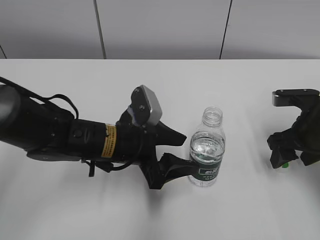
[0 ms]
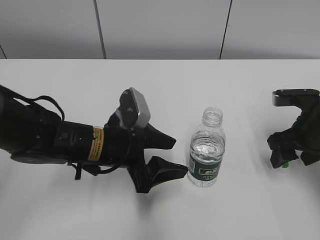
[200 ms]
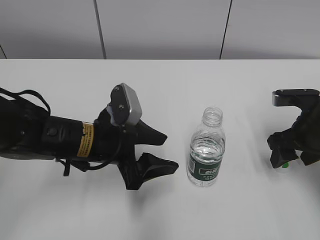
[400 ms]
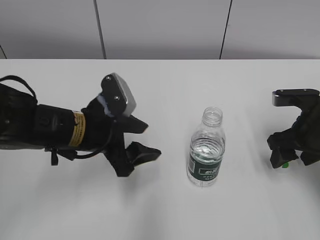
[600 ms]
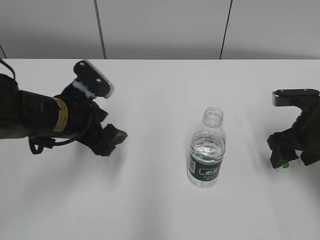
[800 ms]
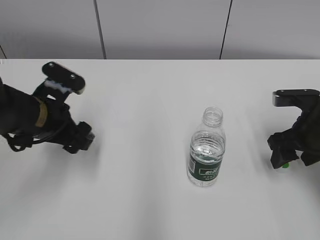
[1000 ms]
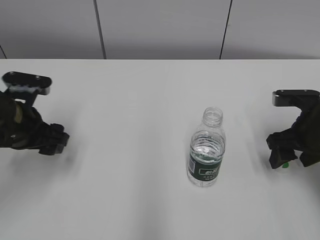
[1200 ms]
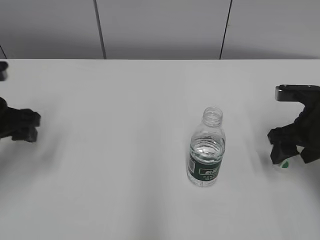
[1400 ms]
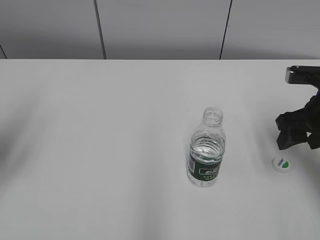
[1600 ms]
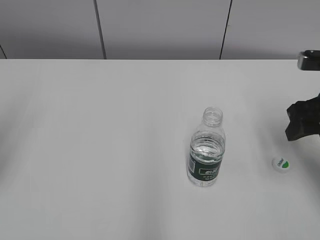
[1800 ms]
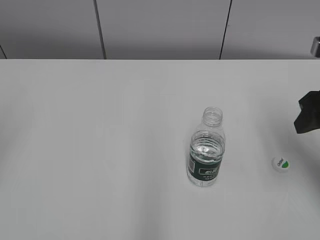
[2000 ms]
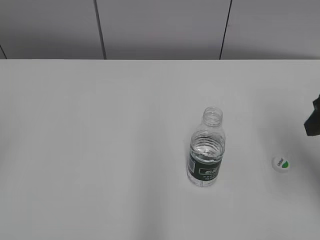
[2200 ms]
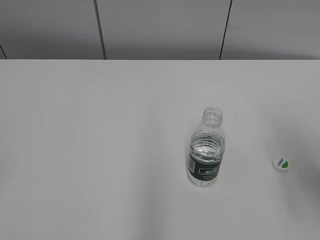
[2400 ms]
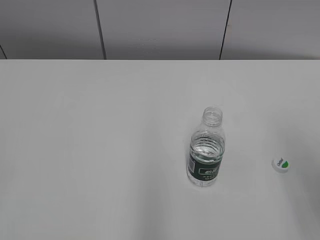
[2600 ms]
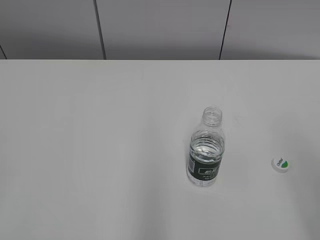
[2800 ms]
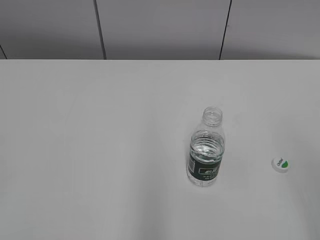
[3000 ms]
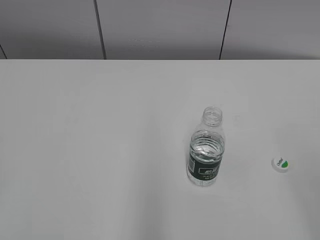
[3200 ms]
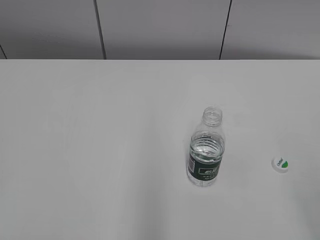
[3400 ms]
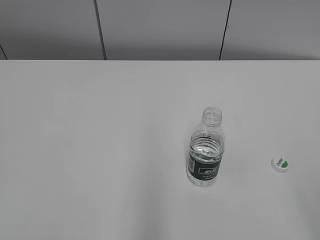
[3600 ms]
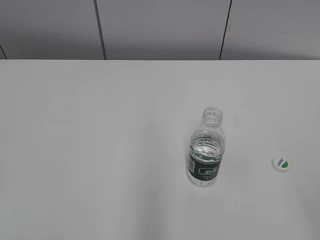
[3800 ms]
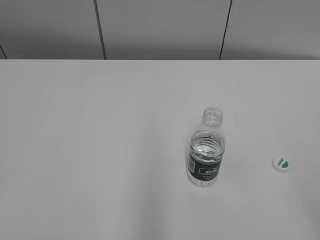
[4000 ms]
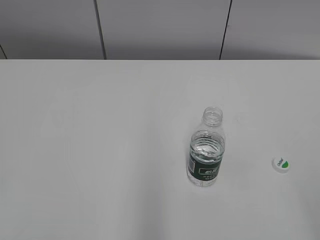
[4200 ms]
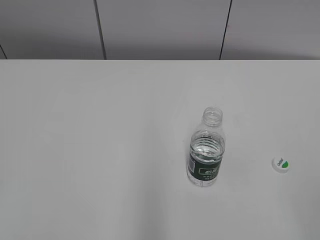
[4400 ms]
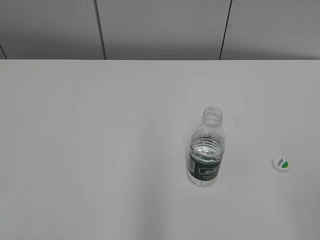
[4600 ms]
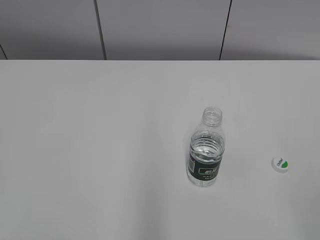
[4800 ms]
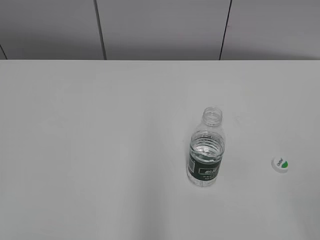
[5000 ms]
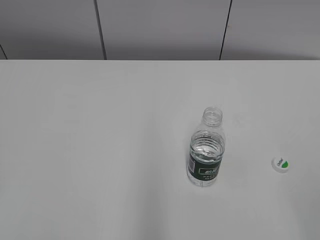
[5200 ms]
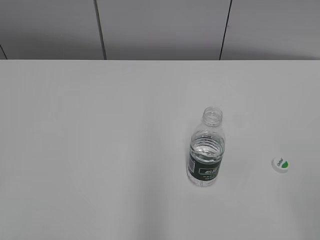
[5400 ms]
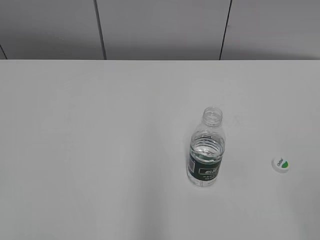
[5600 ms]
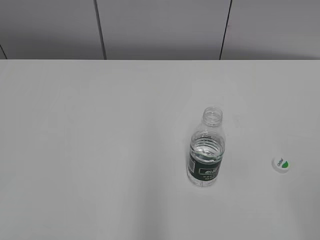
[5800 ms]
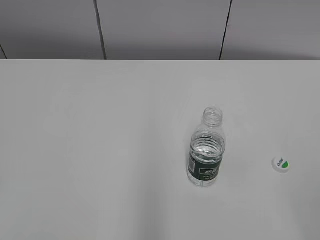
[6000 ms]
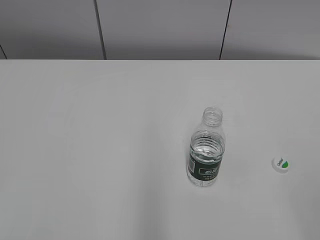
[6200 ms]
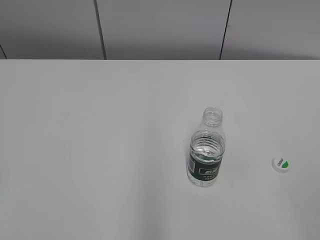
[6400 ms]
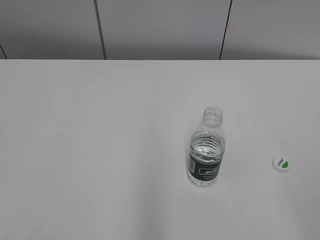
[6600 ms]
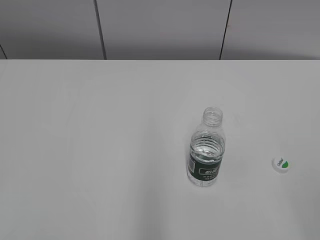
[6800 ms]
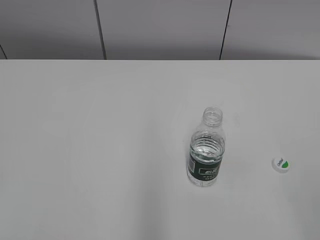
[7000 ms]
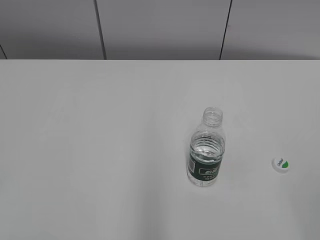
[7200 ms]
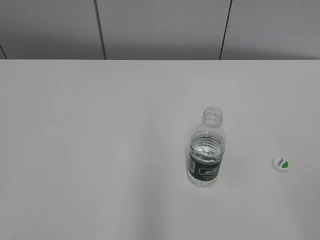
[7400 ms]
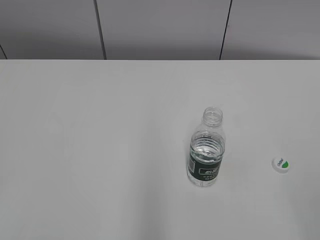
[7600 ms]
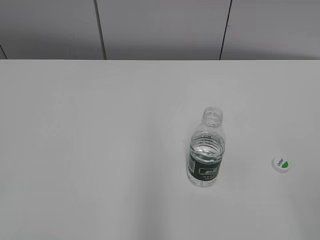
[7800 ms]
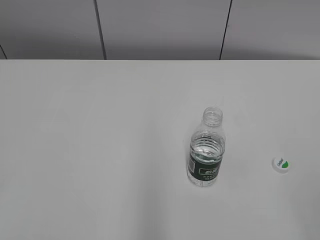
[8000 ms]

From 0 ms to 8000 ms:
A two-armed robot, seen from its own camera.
From 0 ms to 1600 ms: The left gripper travels to the left and upward by roughly 25 cm.
From 1600 ms to 3200 ms: The left gripper shifts about 25 cm backward. Meanwhile the right gripper goes about 30 cm backward and upward.
From 6400 ms to 8000 ms: The two grippers keep their place.

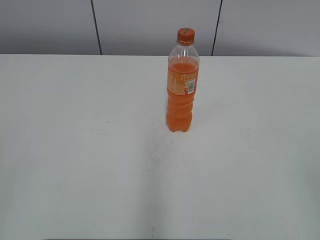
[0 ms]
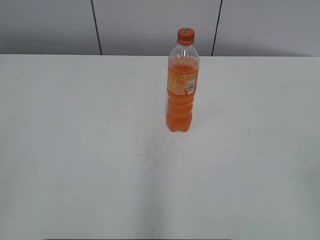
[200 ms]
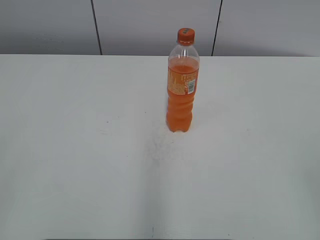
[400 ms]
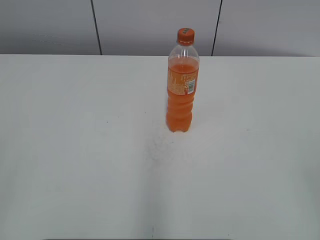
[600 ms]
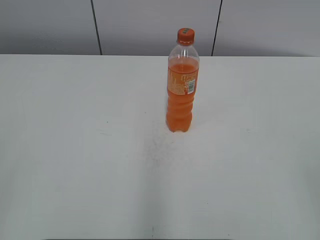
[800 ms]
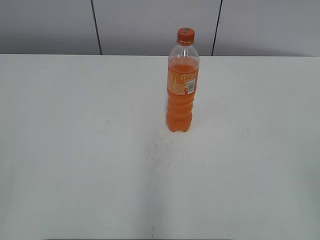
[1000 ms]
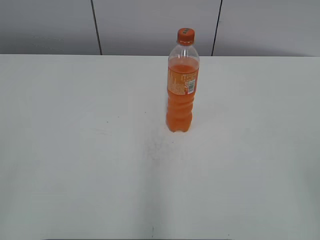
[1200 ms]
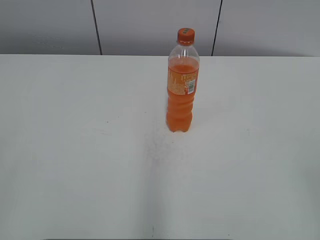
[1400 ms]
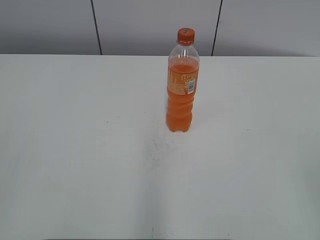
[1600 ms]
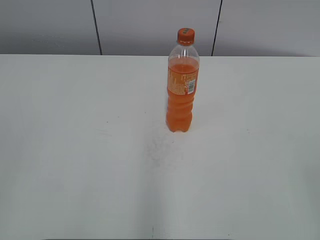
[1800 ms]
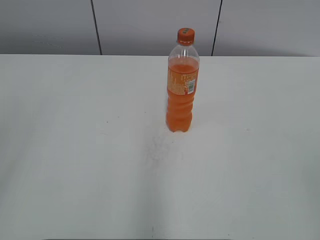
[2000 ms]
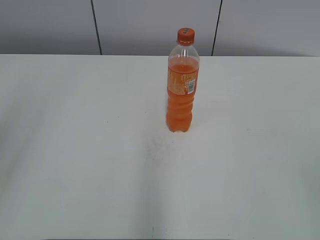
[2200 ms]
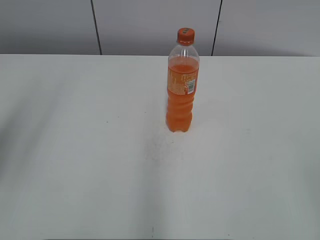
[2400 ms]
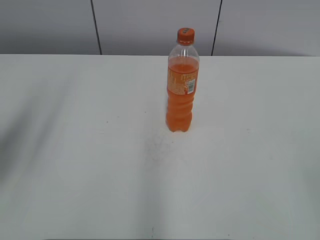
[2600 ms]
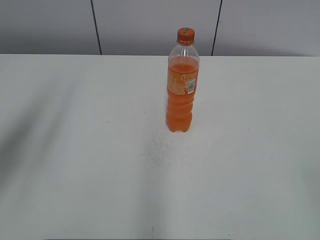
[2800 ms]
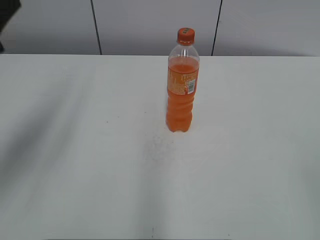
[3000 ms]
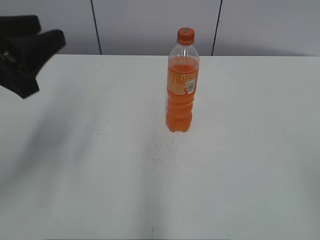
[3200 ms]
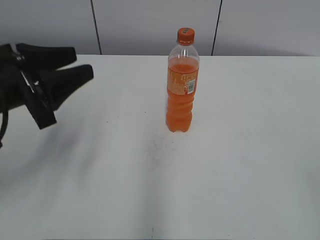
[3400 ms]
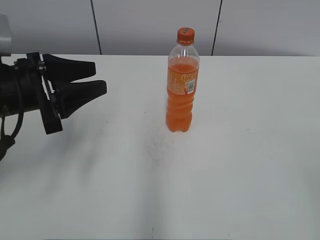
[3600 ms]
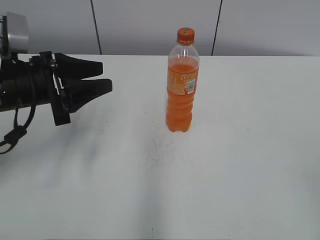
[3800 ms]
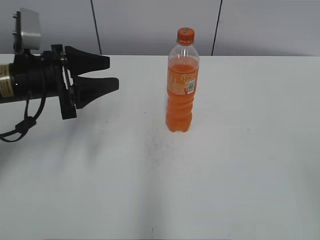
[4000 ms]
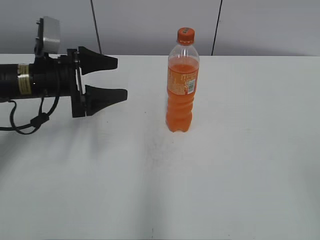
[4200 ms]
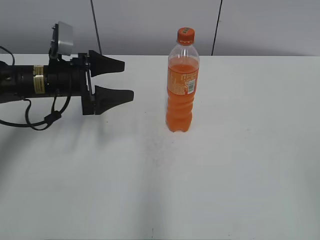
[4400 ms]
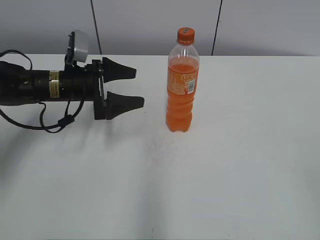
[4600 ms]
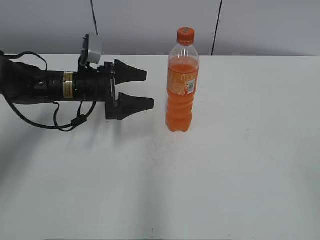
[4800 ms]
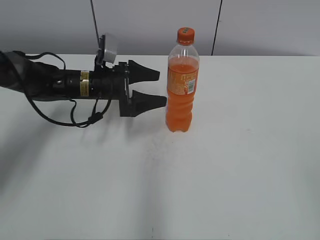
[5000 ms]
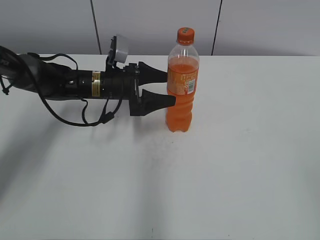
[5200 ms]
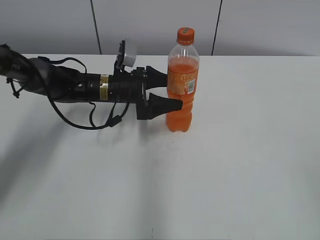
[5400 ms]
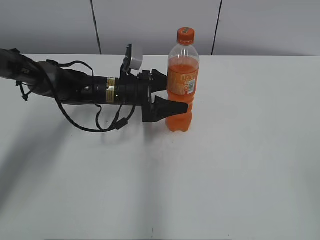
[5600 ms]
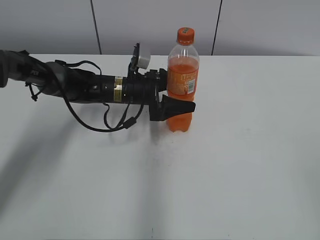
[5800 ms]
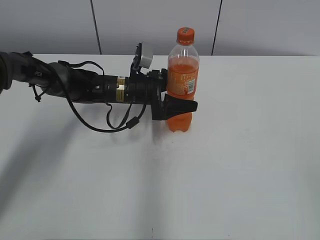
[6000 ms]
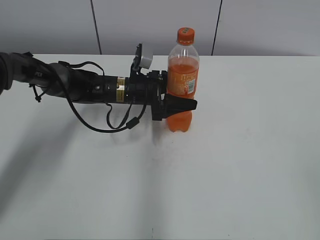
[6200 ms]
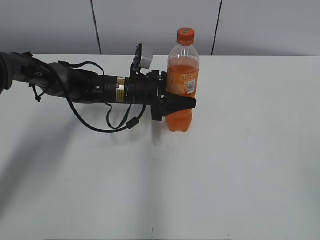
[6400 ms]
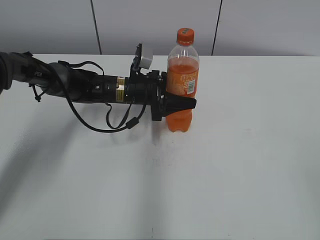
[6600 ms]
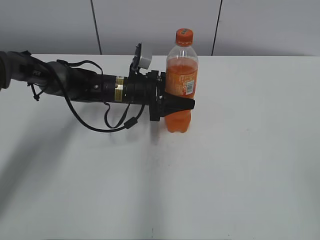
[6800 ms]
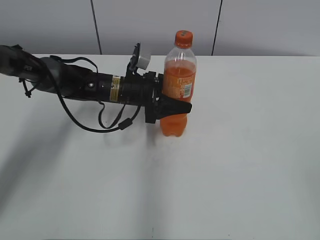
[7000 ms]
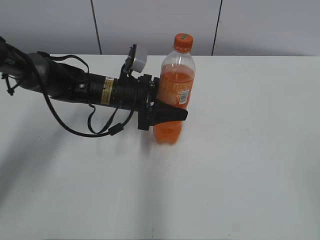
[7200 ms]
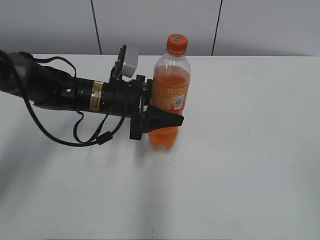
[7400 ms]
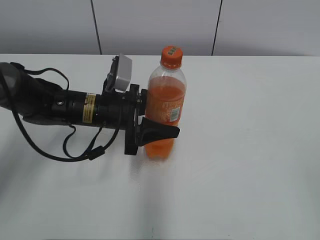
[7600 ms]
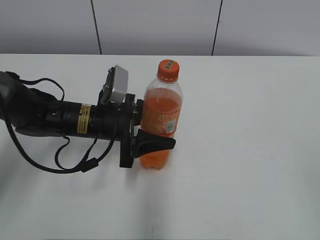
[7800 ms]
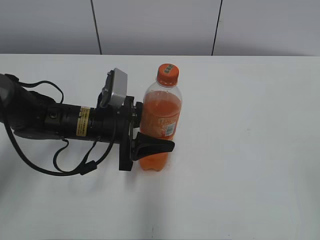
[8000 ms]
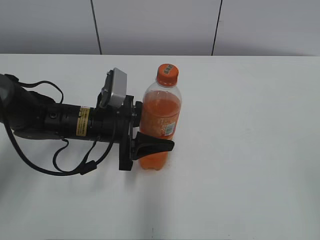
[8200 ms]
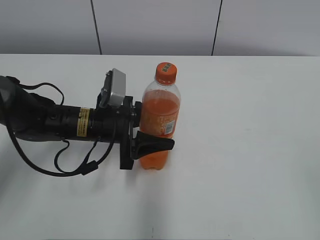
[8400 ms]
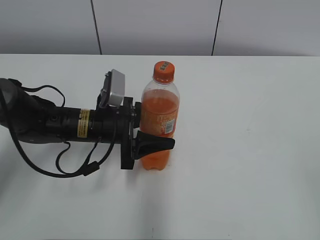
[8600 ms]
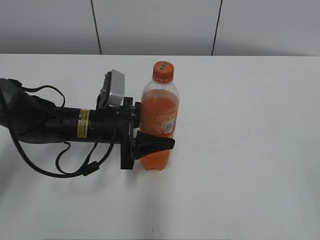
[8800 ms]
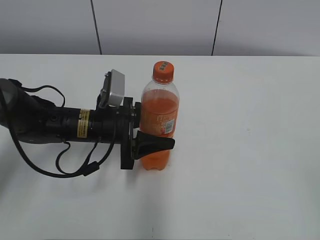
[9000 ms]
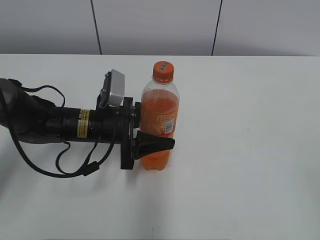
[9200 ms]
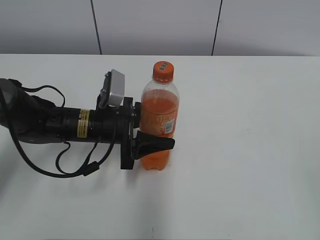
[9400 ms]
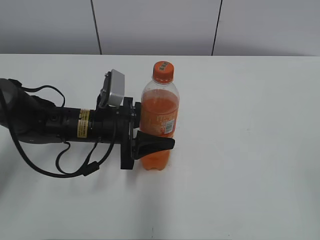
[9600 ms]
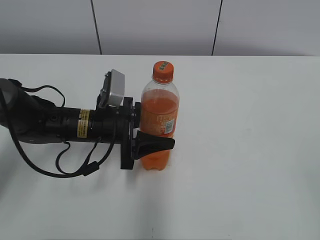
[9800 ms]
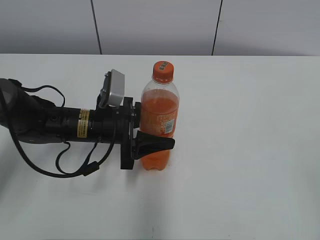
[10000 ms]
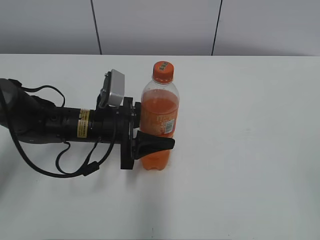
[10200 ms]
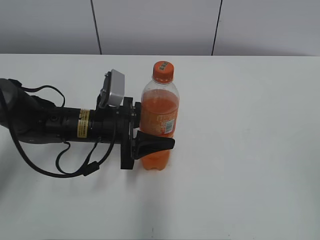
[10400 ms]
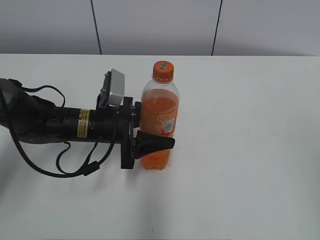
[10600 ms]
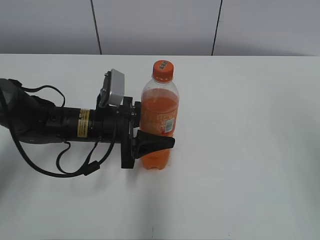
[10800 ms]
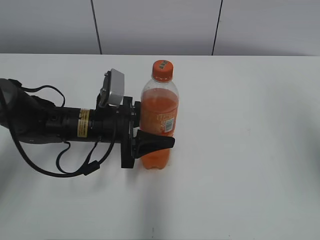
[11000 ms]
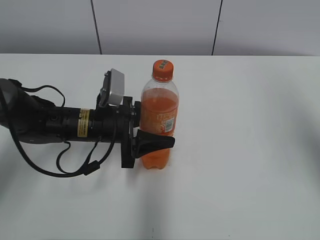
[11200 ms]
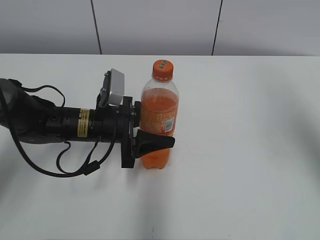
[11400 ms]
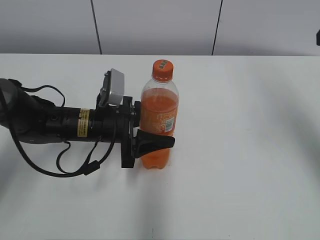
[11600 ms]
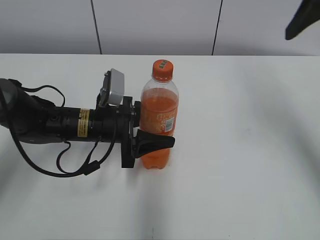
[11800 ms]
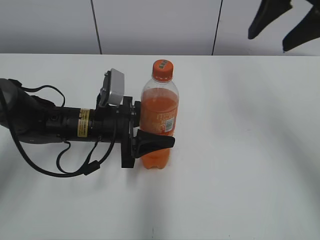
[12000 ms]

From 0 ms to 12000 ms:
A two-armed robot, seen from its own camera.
Step, from 0 ms to 6200 ms: Grab the Mirinda with the left hand.
Step, from 6400 ms to 9000 ms: Move the Mirinda from top to bottom.
From 1600 ms to 3000 ms: The left gripper is displaced forward by about 20 cm.
From 3000 ms to 4400 ms: The left gripper shifts roughly 20 cm forward and downward, and opens.
From 4400 ms to 6000 ms: The left gripper shifts some 15 cm to the right, downward and forward.
From 6000 ms to 7600 ms: The left gripper goes roughly 10 cm backward, and closes.
From 7600 ms to 9000 ms: The grippers make only small movements.
From 10400 ms to 12000 ms: The right gripper shifts about 30 cm forward.

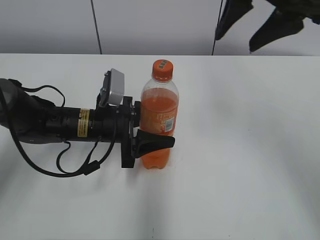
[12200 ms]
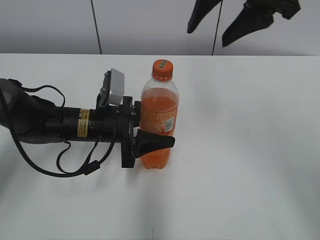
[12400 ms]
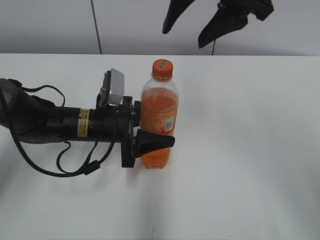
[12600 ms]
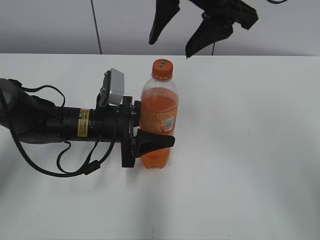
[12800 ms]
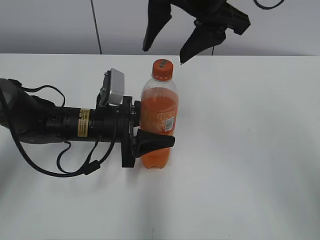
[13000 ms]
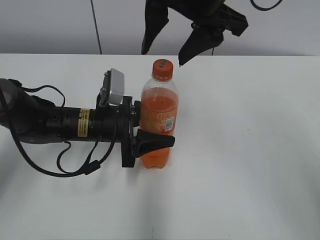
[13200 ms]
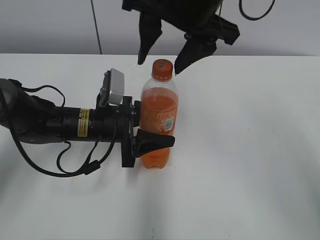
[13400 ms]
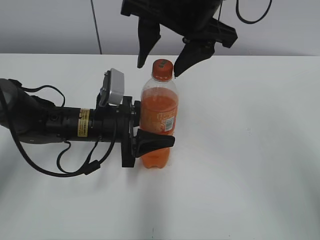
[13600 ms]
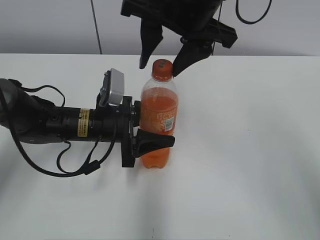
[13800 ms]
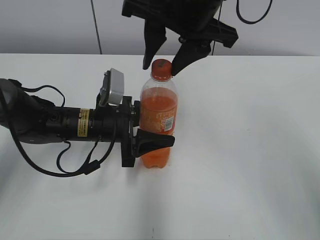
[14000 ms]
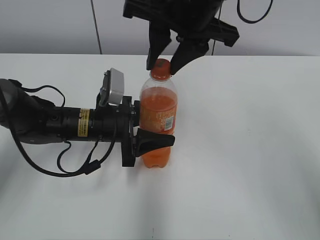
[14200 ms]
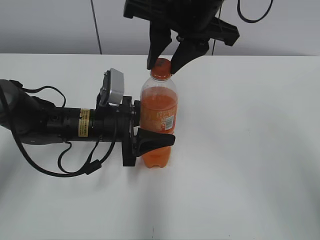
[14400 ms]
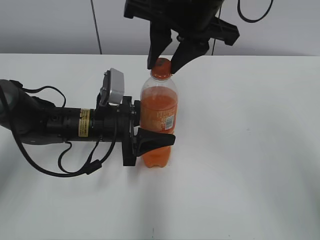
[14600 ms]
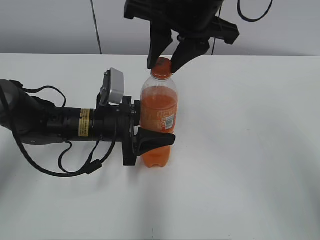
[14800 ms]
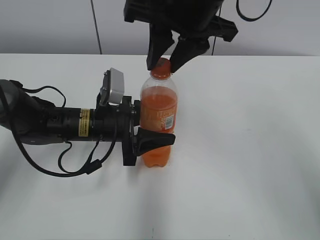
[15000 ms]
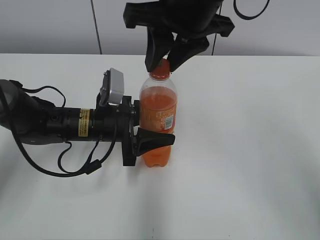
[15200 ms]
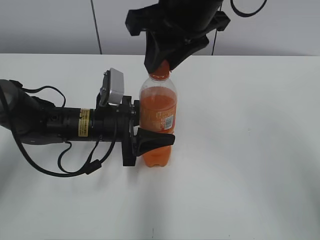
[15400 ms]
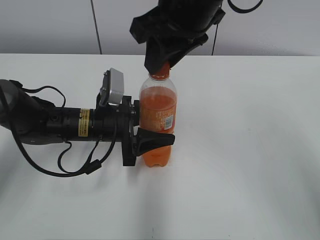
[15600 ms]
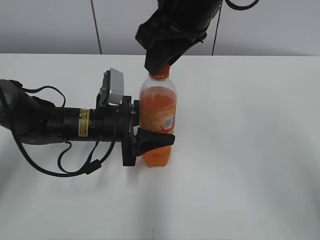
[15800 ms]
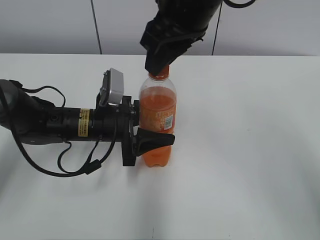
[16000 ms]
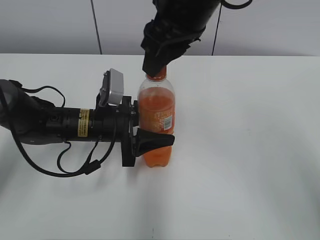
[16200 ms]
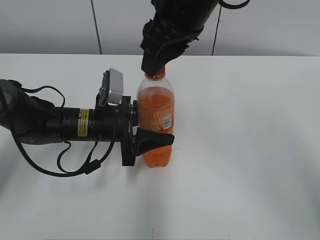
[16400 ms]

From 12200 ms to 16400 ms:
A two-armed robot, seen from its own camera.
From 12200 ms to 13600 ms: The right gripper shifts approximately 10 cm to the left.
From 13600 ms to 15000 ms: The right gripper closes.
